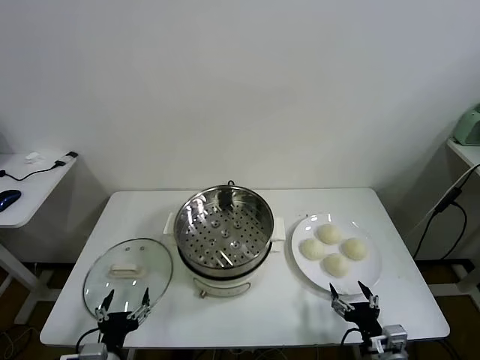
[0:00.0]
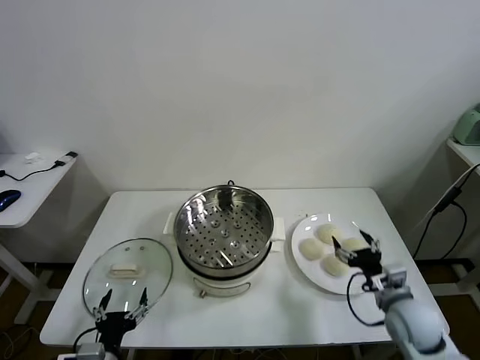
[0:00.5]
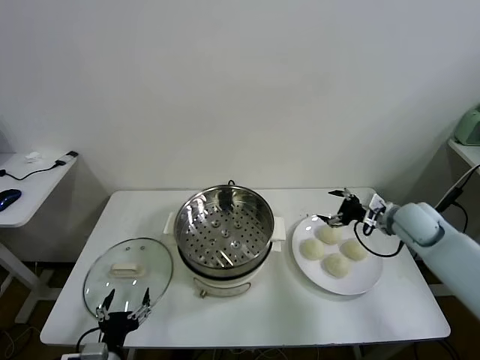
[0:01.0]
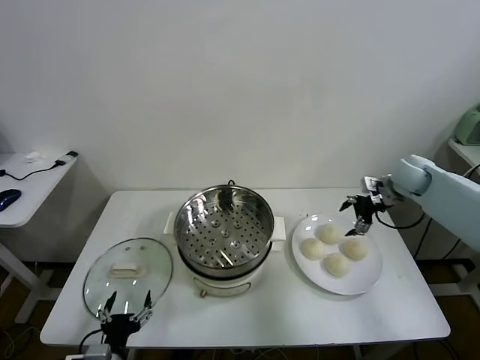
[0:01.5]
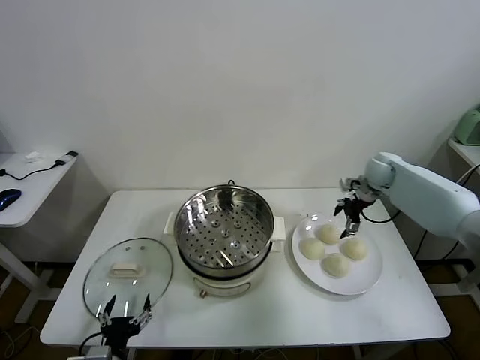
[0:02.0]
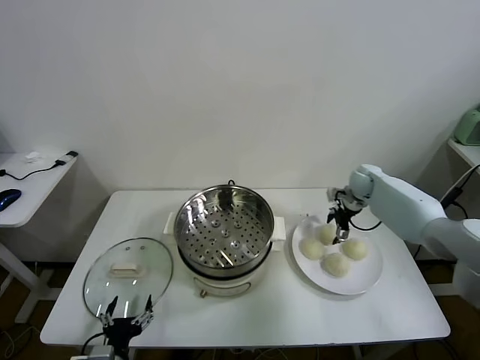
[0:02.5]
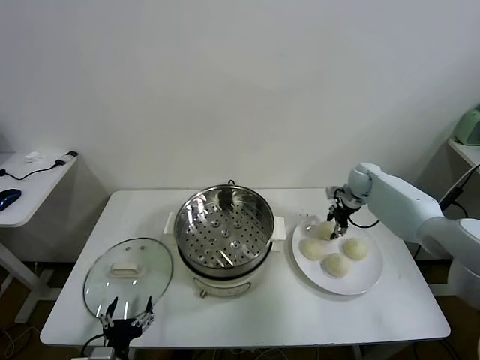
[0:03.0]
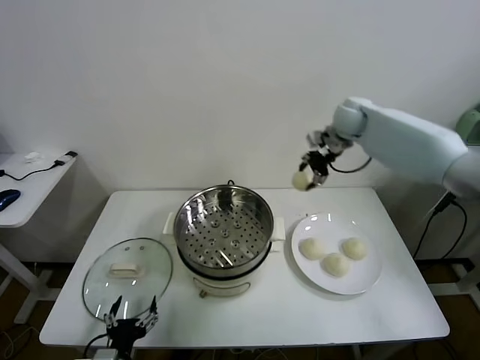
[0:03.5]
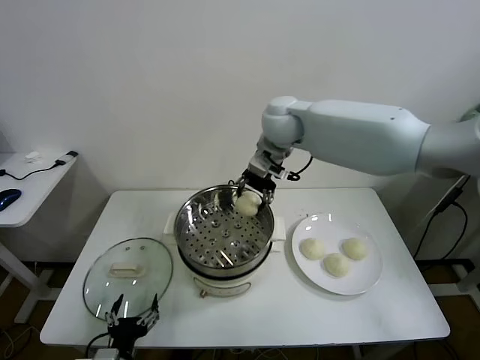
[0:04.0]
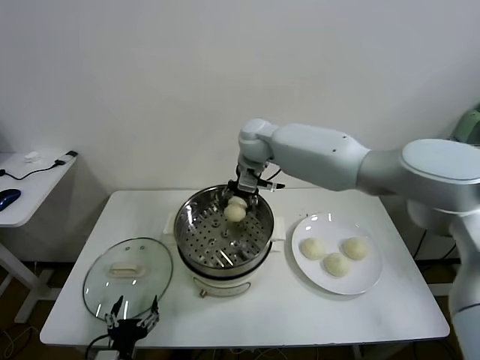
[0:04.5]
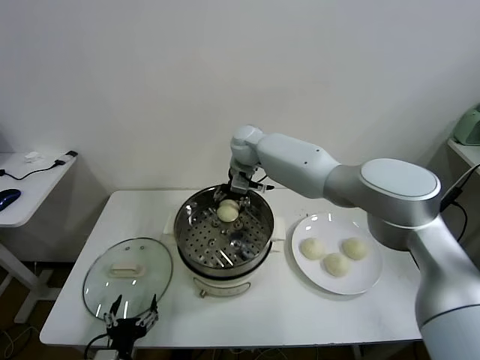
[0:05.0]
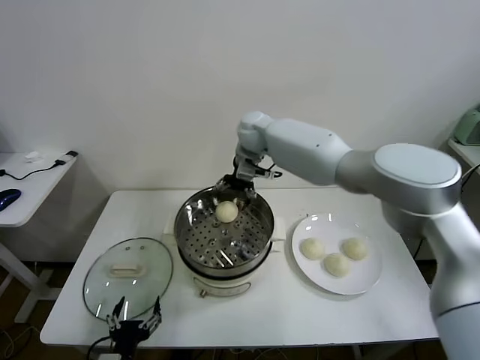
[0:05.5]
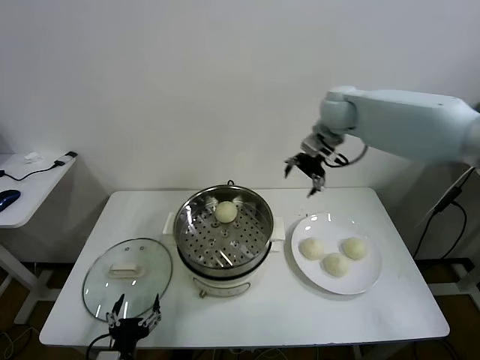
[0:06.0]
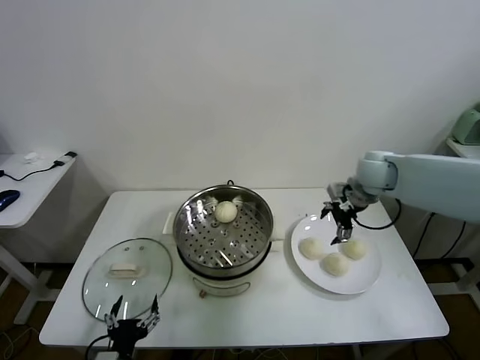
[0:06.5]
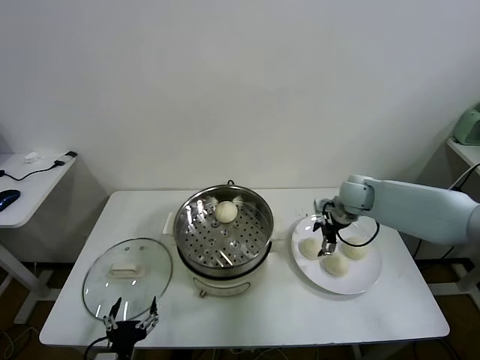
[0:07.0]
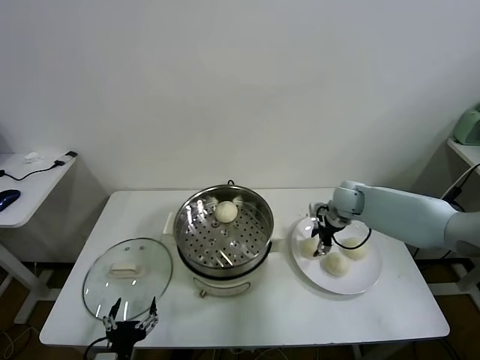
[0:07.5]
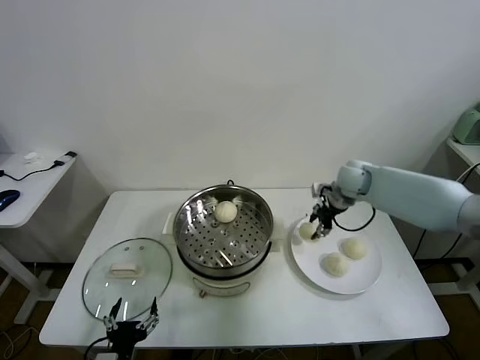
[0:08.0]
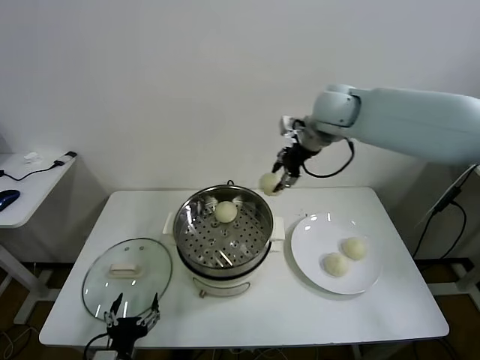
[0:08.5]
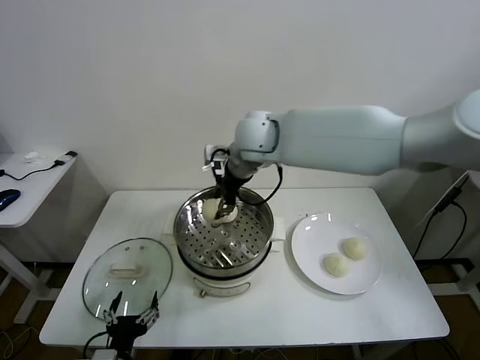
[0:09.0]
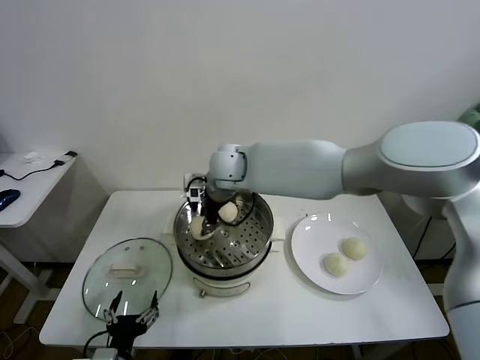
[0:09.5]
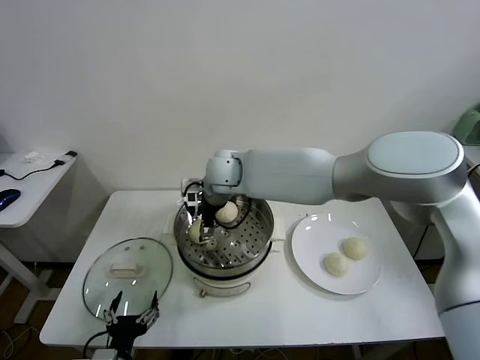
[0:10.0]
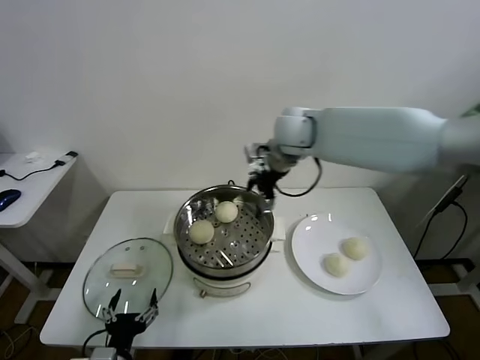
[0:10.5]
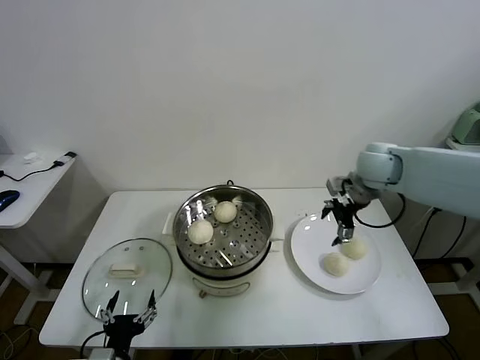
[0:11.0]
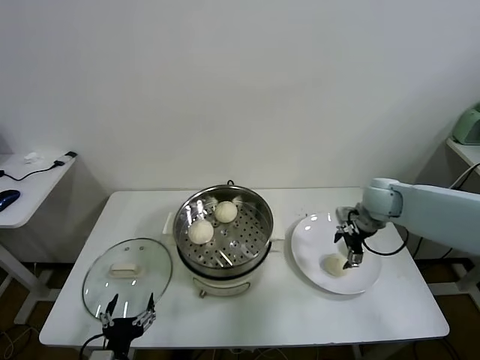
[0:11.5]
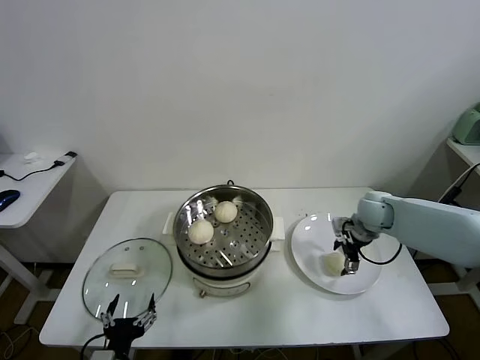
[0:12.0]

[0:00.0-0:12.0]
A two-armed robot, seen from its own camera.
Task of the whole recording: take steamed baozi put them in steamer.
Step, 0:00.0 to 0:02.5: Grasp the baozi in the plate with right gripper.
Step, 0:03.0 to 0:05.0: Place the baozi on the steamer with right gripper.
Step, 0:05.5 to 0:07.5: Grasp the baozi in the plate with right gripper.
Step, 0:08.0 to 0:09.5: Place the baozi on the steamer with right gripper.
0:02.0 to 0:04.0: The right gripper is displaced to the left and upward by roughly 35 cm, and closes its fingers.
0:04.0 to 0:06.0: The right gripper goes roughly 20 cm to the right, and opens its fingers.
0:06.0 to 0:08.0: The right gripper is displaced downward by roughly 15 cm, and closes its fingers.
0:08.0 to 0:10.0: The right gripper is displaced to the left by some 30 cm, and opens.
0:10.0 to 0:12.0: The right gripper is displaced to the right by approximately 35 cm.

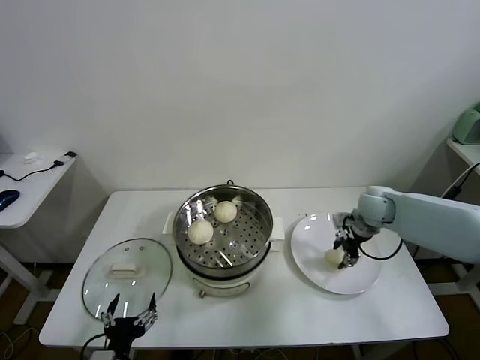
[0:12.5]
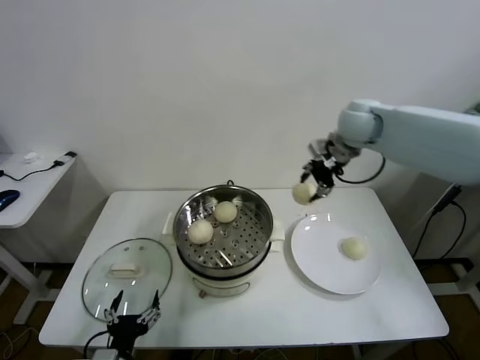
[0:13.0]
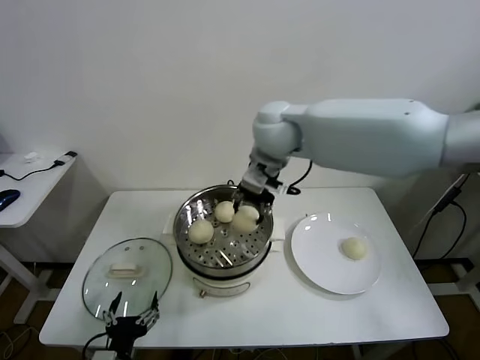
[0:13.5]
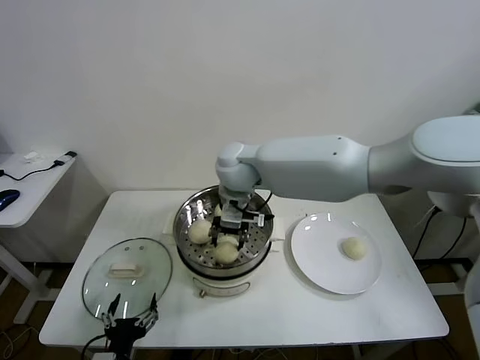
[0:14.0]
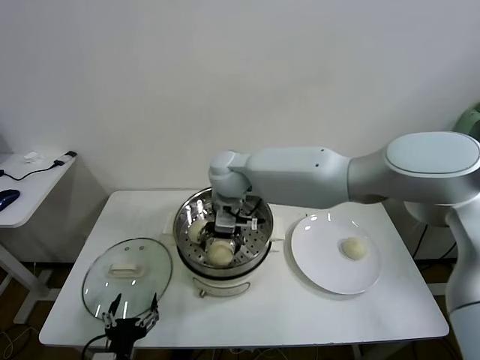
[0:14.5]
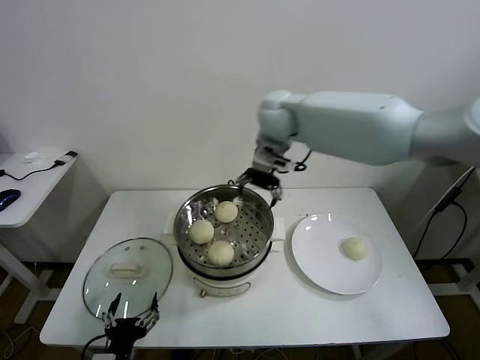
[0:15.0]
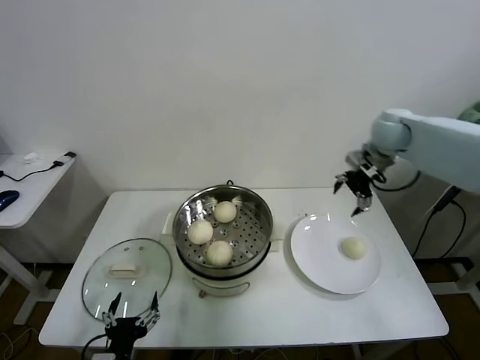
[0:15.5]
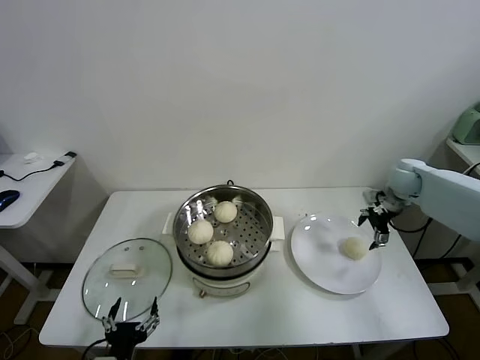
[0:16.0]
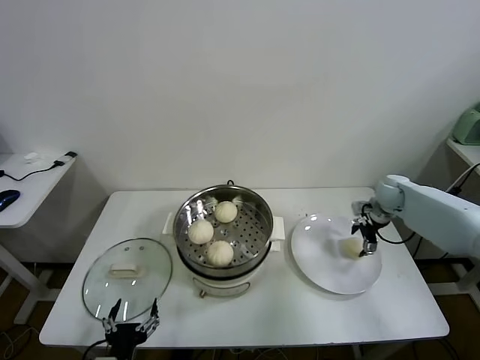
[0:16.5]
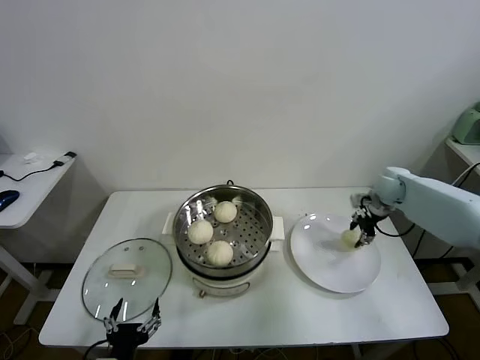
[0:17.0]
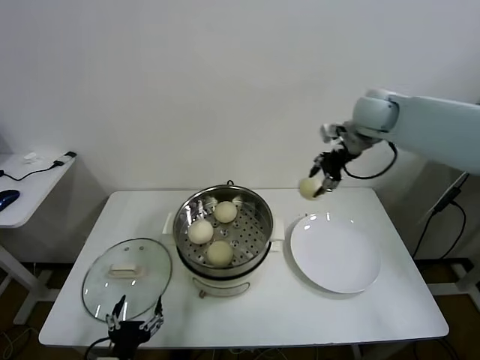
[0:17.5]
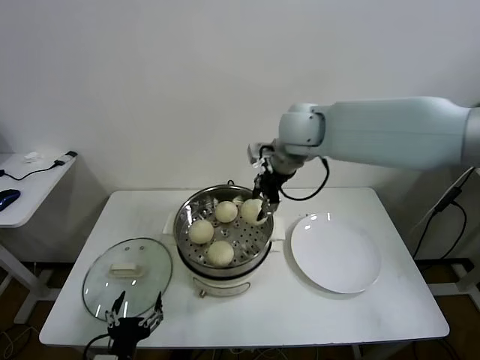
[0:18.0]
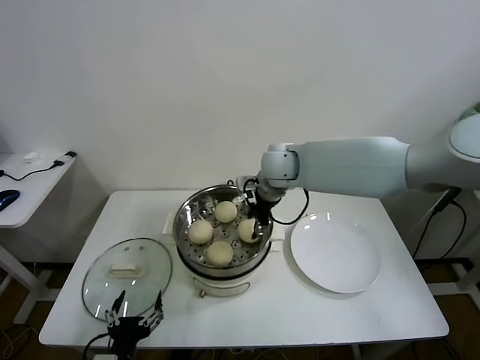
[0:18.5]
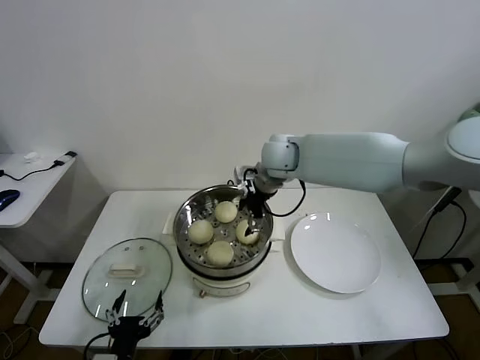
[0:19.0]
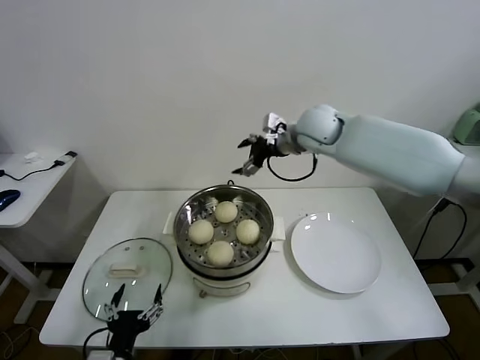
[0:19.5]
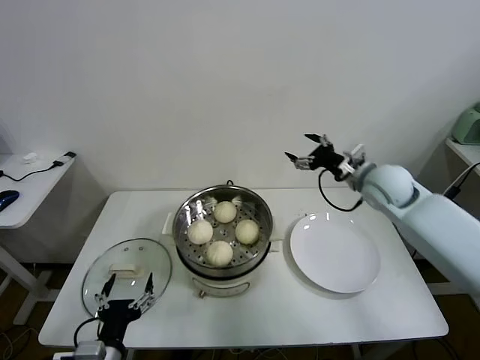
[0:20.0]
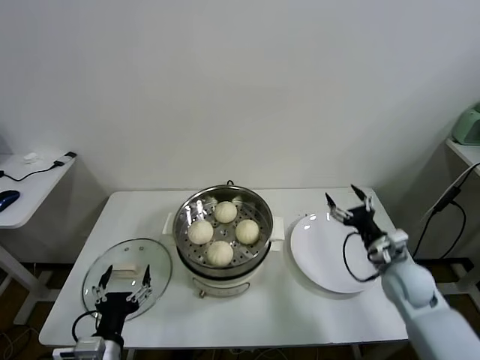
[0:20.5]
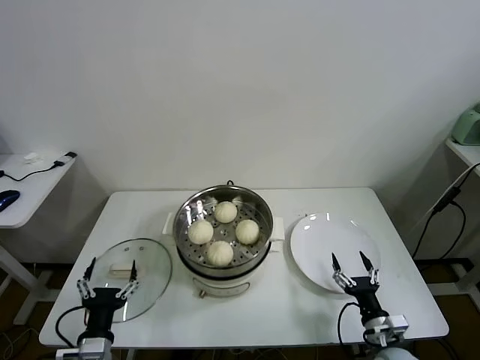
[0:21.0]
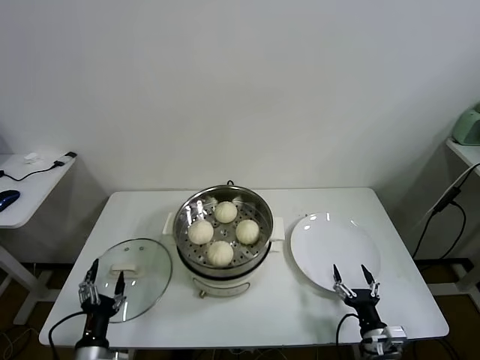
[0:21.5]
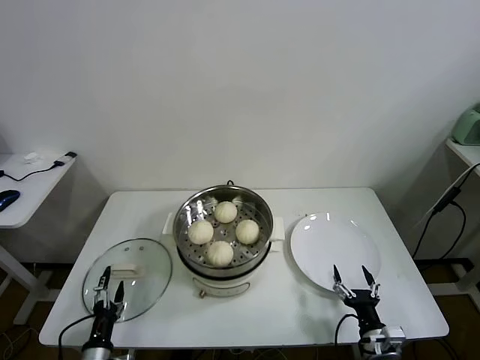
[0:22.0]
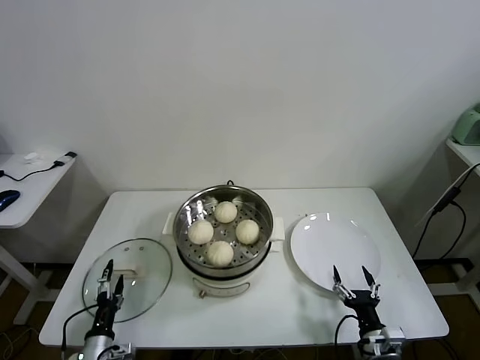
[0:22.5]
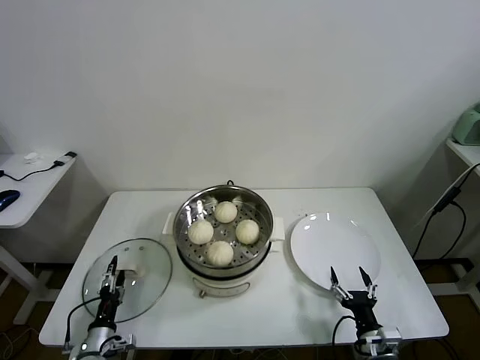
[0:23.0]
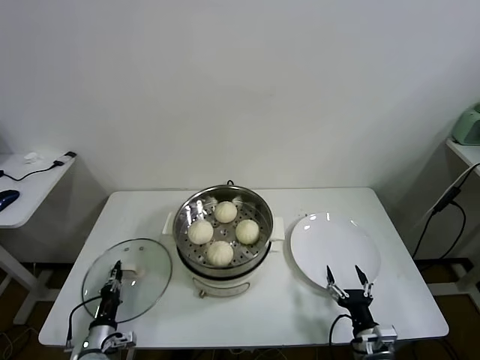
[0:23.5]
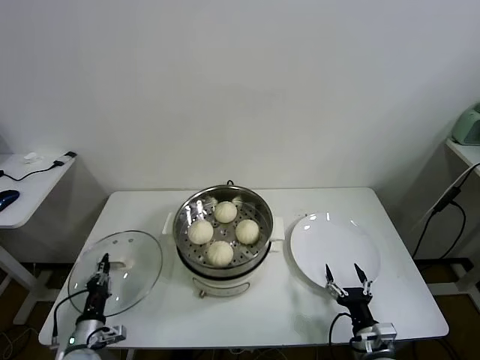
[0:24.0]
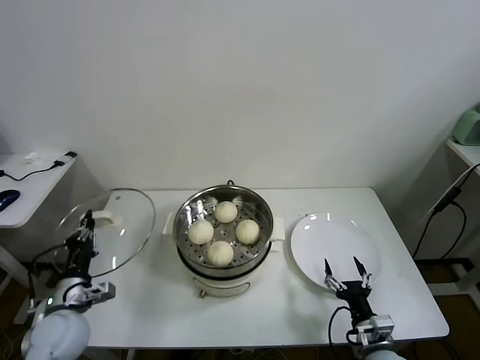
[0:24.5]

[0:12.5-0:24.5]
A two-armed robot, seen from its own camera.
Task of the whole recording: take steamed baozi put them in steamer.
Step, 0:12.5 to 0:14.5: Place the baozi on the steamer with right gripper.
Step, 0:15.0 to 0:16.5: Grasp the baozi in the plate with right gripper.
Step, 0:17.0 to 0:18.5: Place the baozi on the steamer with right gripper.
Step, 0:19.0 to 0:23.5: Grasp the pot lid with left gripper.
0:12.5 to 0:14.5: The right gripper is displaced to the left by roughly 35 cm, and opens up.
0:14.5 to 0:16.5: The right gripper shifts some 40 cm to the right.
0:16.5 to 0:18.5: The right gripper shifts approximately 35 cm to the left and upward, and closes its fingers.
0:18.5 to 0:20.5: The right gripper is displaced to the right, downward and backward by roughly 40 cm, and opens its fingers.
0:20.5 to 0:22.5: The left gripper travels downward and to the left by roughly 15 cm. The right gripper moves backward and downward, roughly 20 cm.
0:22.5 to 0:24.5: The left gripper heads upward, covering about 15 cm, and closes up.

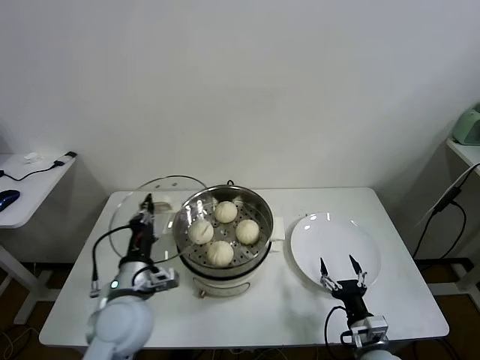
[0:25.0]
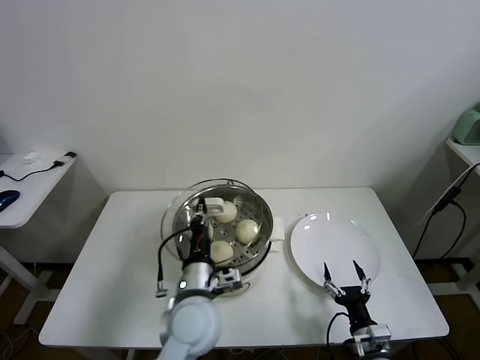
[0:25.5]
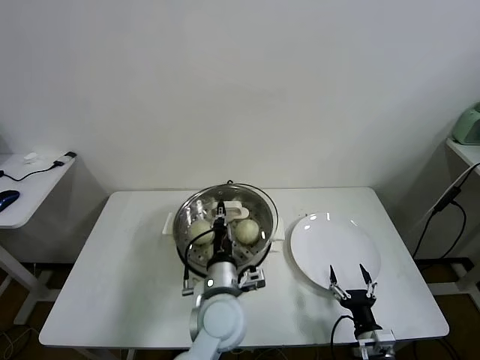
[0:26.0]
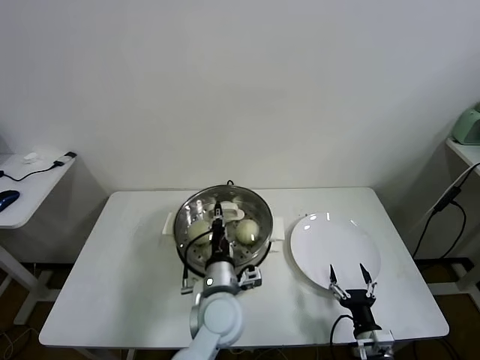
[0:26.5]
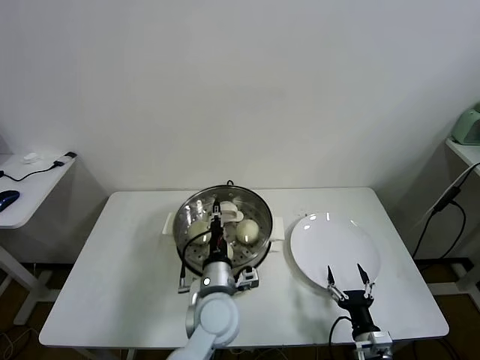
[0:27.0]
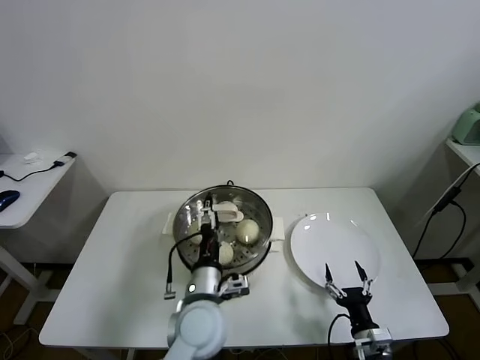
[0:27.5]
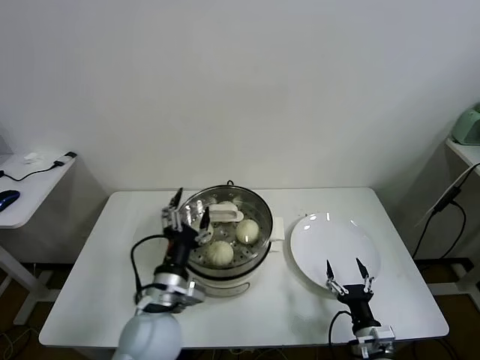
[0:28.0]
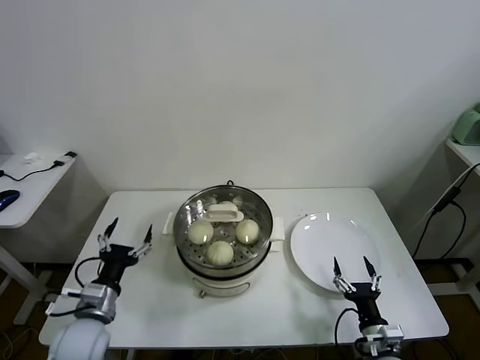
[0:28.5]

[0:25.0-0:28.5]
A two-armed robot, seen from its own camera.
Task of the whole recording: take steamed baozi put them in steamer.
Step, 0:25.0 to 0:27.0: Place the pot lid on the steamer with left gripper.
0:25.0 to 0:27.0: The left gripper travels to the right by approximately 20 cm.
0:27.0 to 0:28.5: The left gripper moves to the left, about 25 cm, and opens its fingers.
